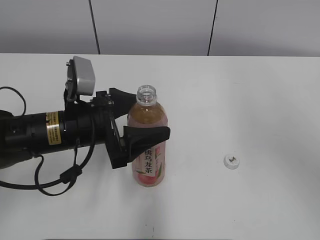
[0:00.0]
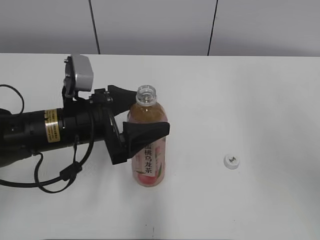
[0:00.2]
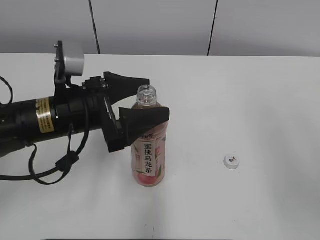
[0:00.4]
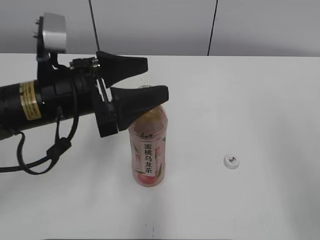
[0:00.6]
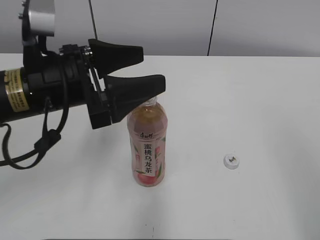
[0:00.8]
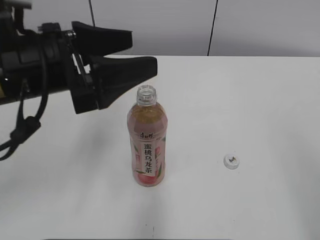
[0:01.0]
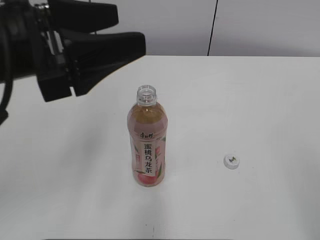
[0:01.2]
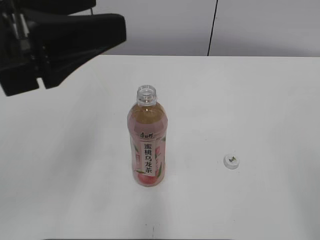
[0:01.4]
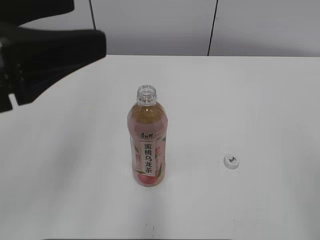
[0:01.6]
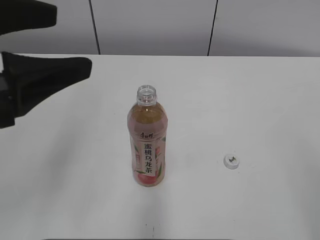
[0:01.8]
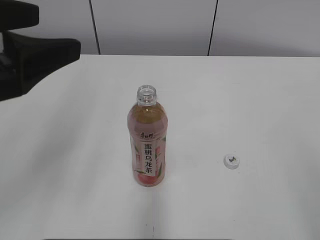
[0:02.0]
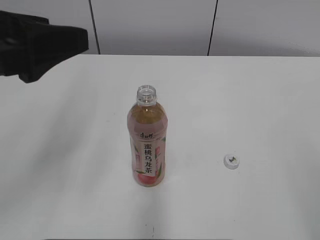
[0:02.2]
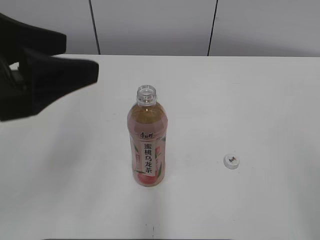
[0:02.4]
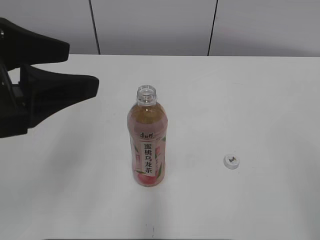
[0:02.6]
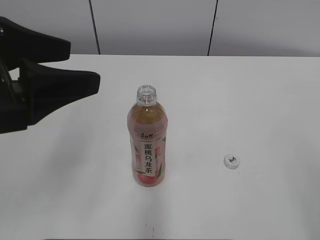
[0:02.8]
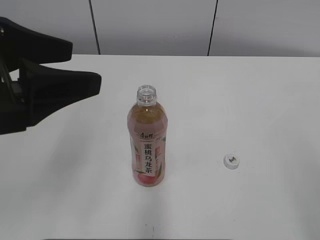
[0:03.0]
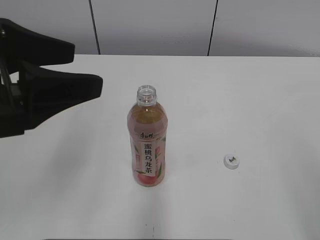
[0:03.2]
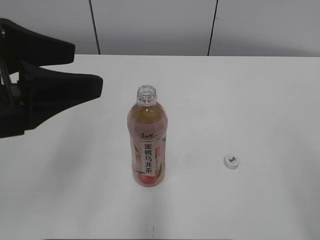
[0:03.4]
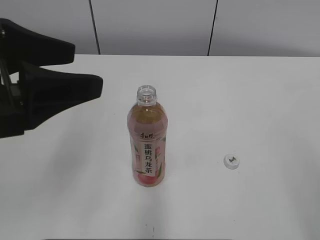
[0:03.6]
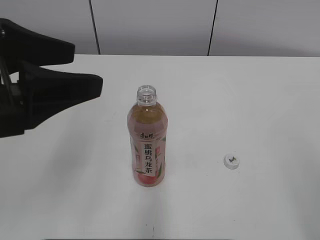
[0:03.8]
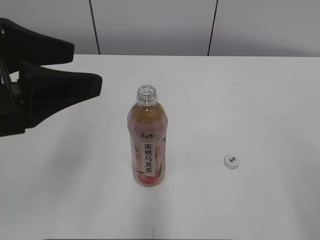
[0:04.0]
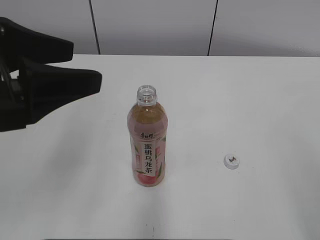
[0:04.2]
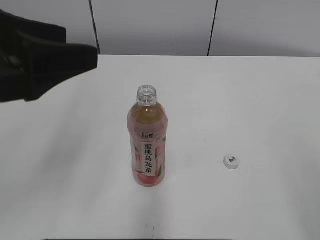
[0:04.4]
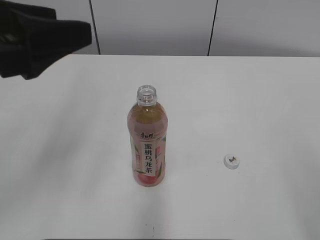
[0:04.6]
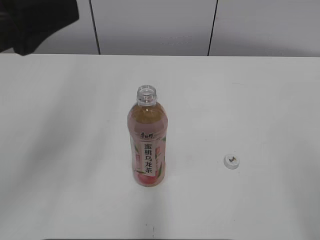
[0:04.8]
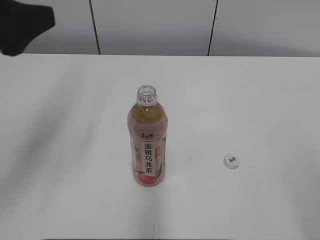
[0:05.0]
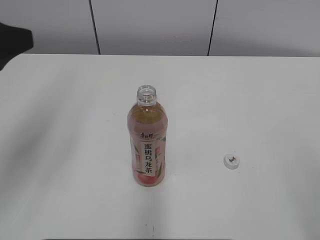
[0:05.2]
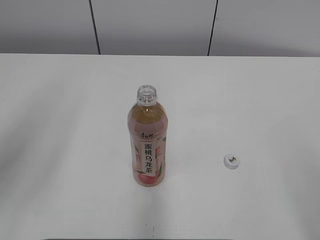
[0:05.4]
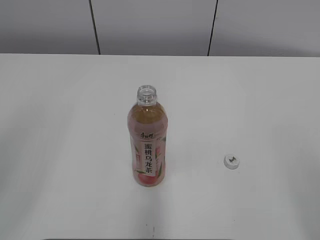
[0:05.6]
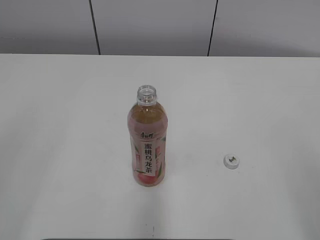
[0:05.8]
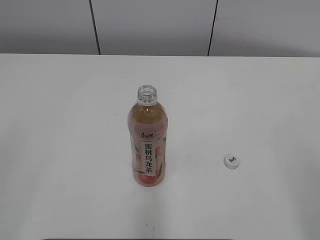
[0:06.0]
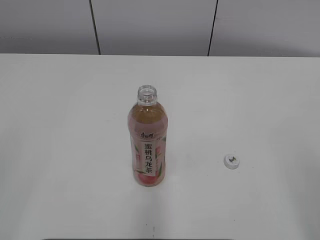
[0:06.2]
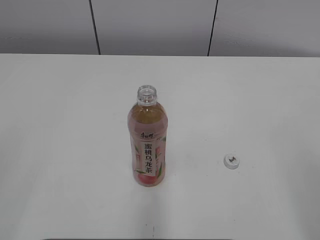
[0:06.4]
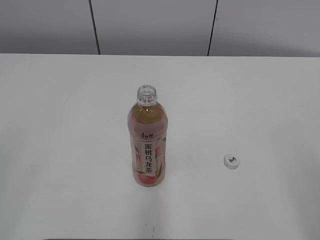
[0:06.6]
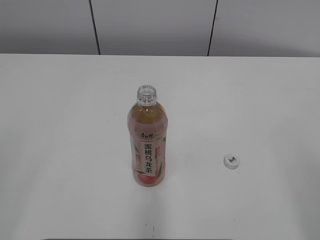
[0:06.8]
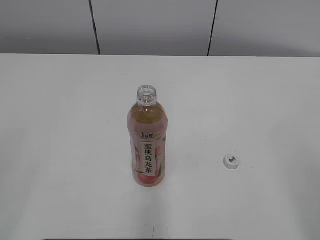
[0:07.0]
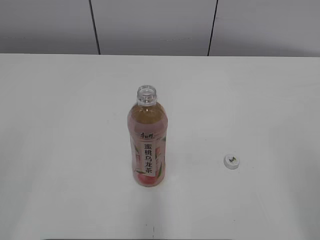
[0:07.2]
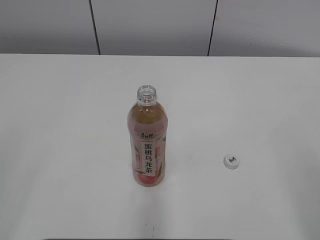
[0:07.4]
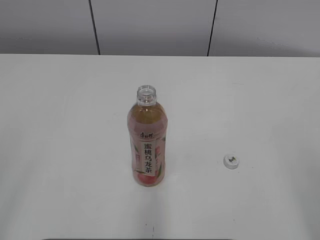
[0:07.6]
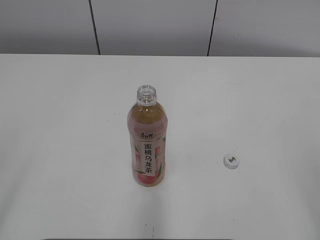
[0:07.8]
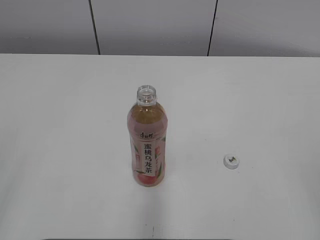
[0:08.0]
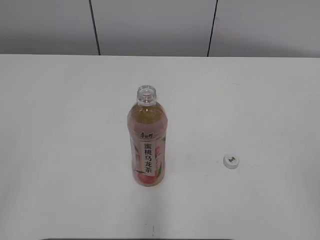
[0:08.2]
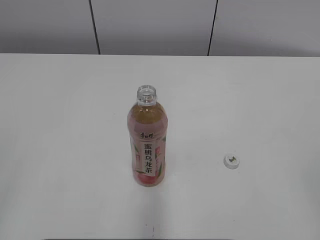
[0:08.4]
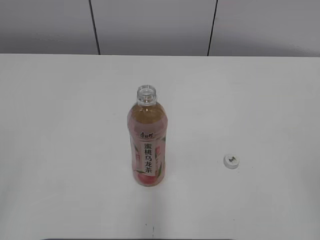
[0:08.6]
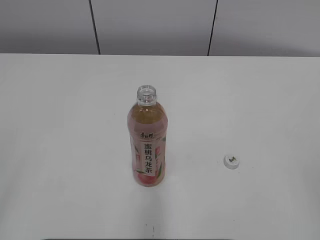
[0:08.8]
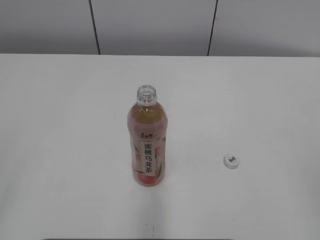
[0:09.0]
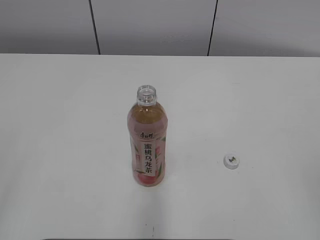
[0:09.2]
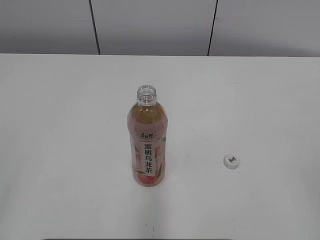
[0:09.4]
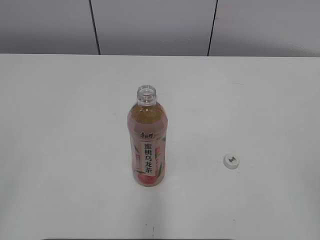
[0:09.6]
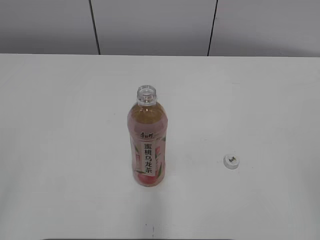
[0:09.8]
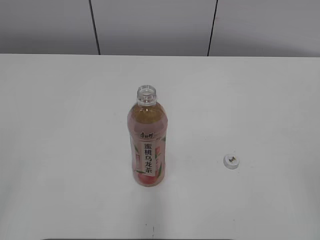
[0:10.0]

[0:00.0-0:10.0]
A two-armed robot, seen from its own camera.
0:00.0 to 0:01.4: The right gripper is displaced backward, downward and to the right by about 25 cm. Meanwhile the left gripper is displaced upward and backward by approximately 20 cm.
0:02.8 to 0:04.2: Both grippers stay put.
0:04.2 to 0:05.8: The left gripper moves backward and to the left, approximately 15 cm.
0:08.6 to 0:10.0: Both grippers stay put.

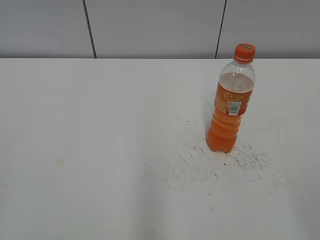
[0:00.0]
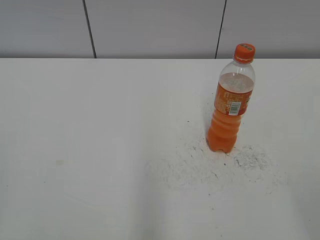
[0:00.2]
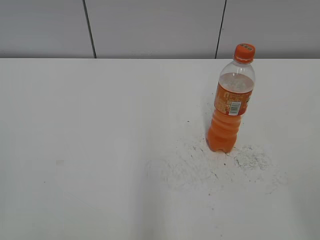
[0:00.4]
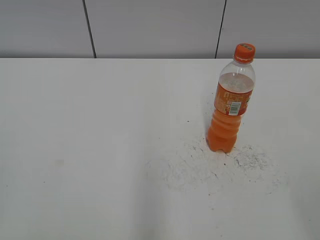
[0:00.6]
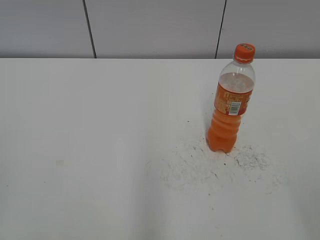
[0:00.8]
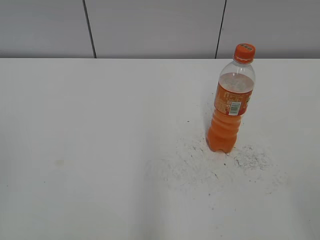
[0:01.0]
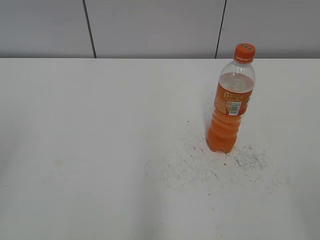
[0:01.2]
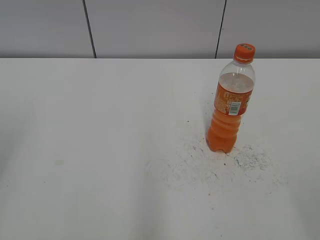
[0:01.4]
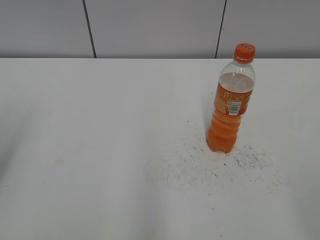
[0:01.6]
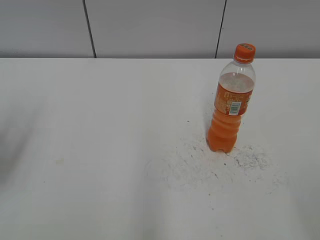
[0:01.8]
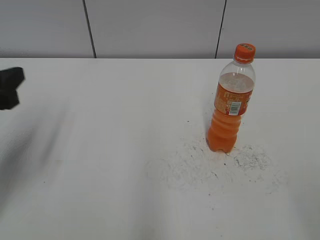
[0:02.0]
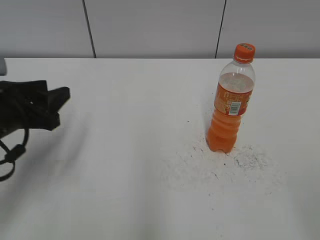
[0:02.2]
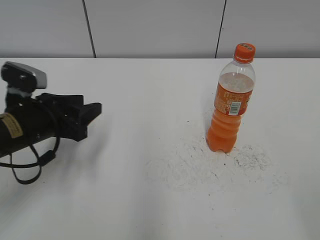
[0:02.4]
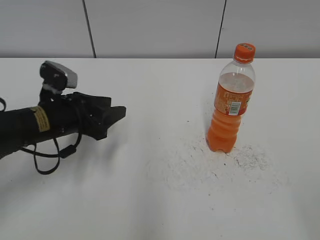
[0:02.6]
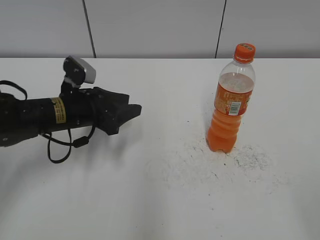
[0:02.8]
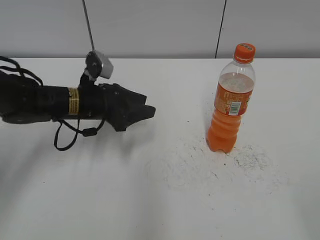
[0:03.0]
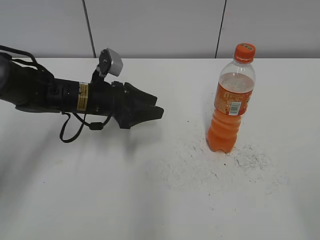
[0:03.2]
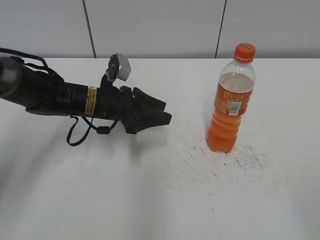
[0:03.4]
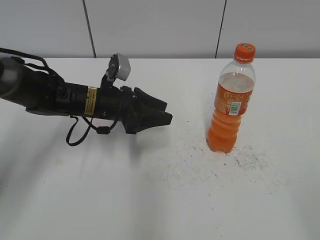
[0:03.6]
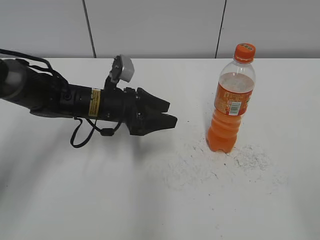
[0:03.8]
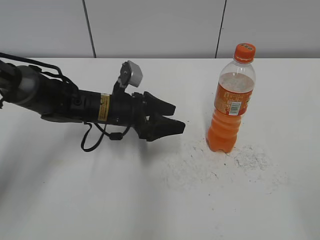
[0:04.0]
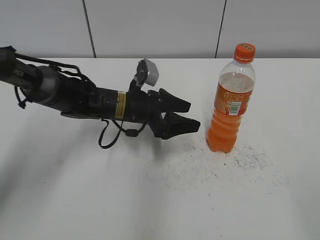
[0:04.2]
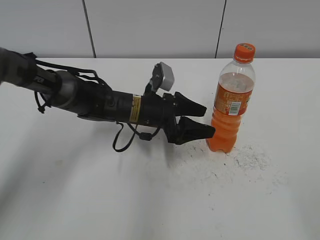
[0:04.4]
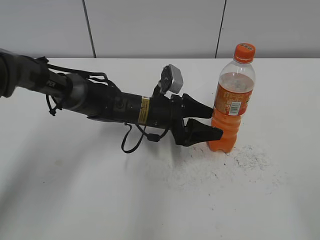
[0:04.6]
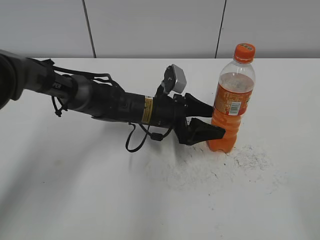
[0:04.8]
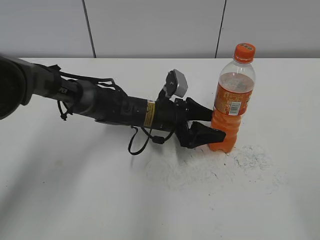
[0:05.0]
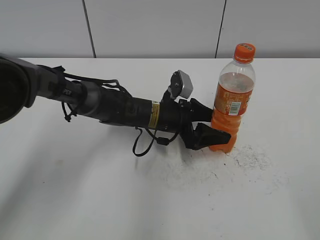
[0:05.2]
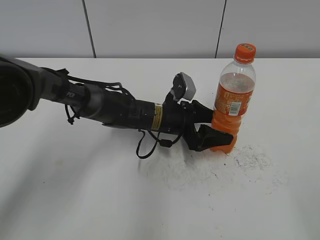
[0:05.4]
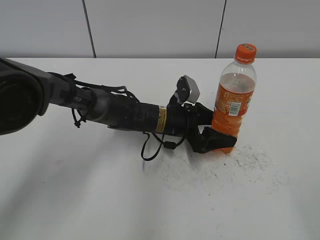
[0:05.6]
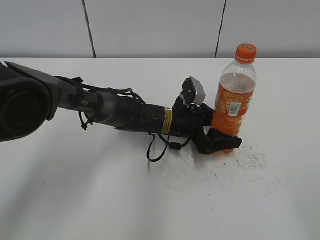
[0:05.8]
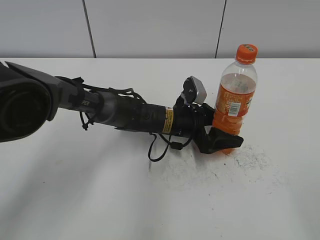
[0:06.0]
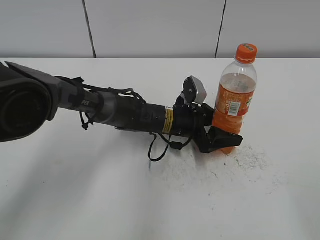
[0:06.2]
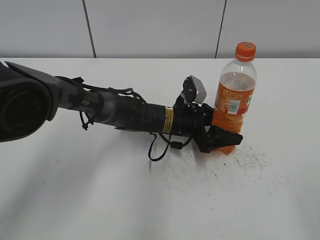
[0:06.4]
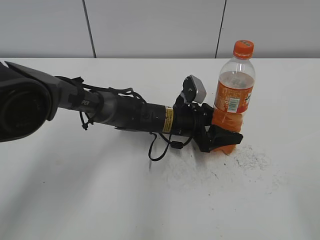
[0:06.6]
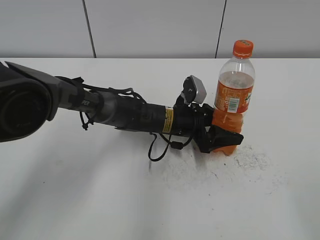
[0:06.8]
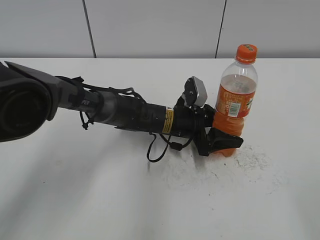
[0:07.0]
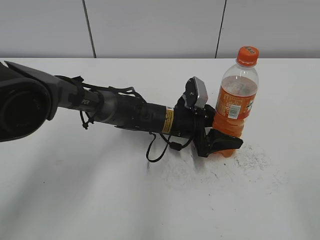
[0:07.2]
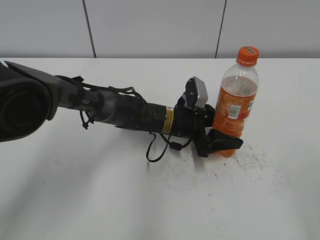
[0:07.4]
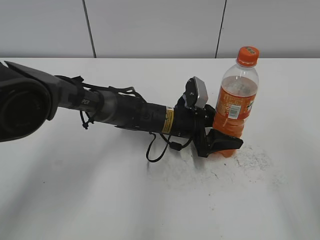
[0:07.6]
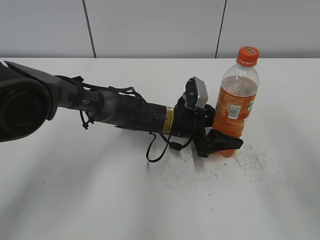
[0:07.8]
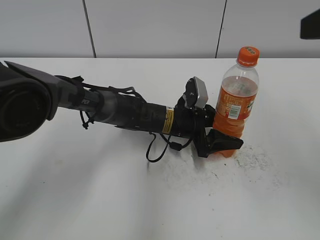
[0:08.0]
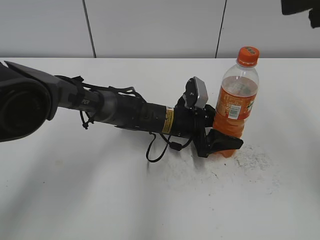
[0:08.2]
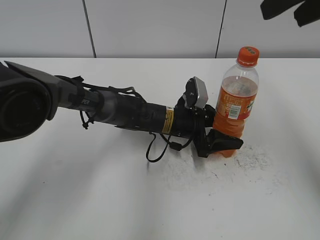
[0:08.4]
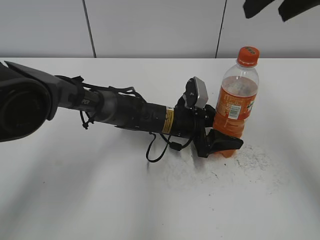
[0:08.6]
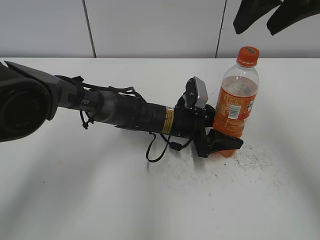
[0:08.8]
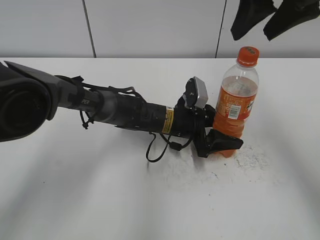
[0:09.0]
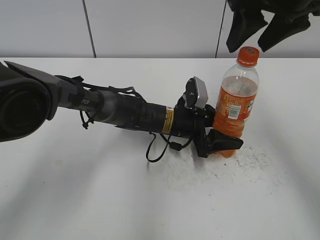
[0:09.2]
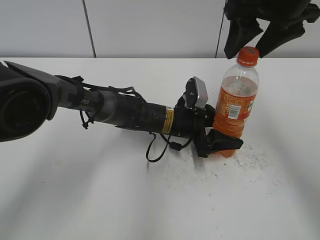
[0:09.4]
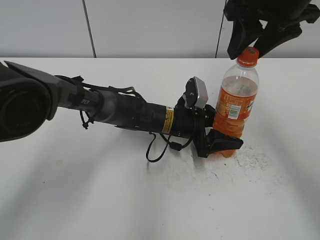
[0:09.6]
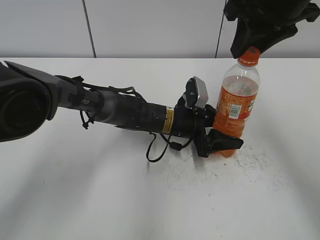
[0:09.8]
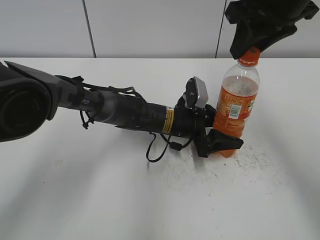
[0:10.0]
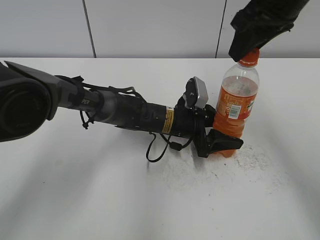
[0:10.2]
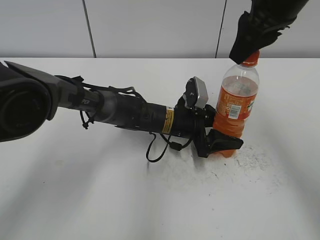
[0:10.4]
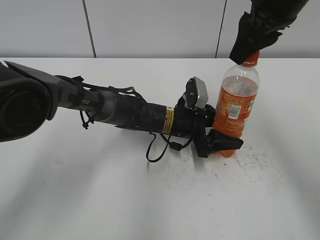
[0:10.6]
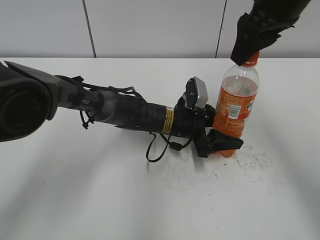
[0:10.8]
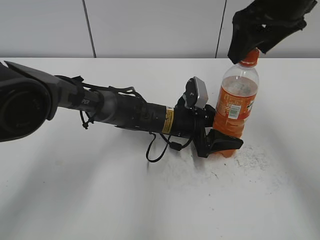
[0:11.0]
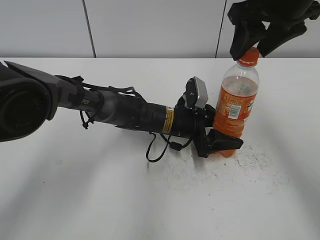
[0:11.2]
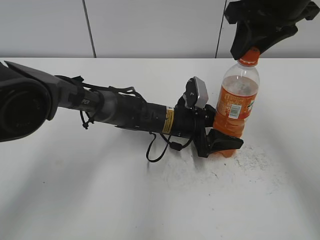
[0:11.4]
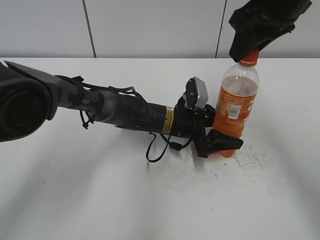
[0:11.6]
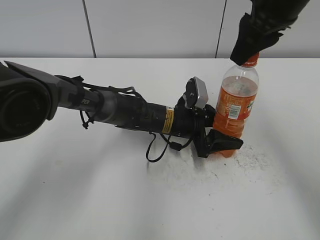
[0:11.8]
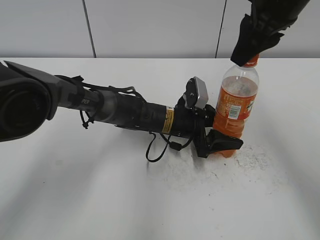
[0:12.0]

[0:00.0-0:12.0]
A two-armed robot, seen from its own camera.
Step, 0:00.0 to 0:06.6: Grab the Mirinda with the left hand.
0:01.6 to 0:03.0: The left gripper moves forward, to the right and downward, approximately 30 cm.
0:03.0 to 0:04.4: The left gripper moves to the right, about 10 cm, and opens.
0:04.4 to 0:06.0: The left gripper is displaced to the right by some 5 cm.
0:06.0 to 0:07.6: The right gripper heads forward, covering some 10 cm. Meanwhile the left gripper closes its fingers.
0:07.6 to 0:09.0: The right gripper travels forward by some 25 cm.
0:09.0 to 0:10.4: The right gripper closes up.
0:10.4 to 0:12.0: The right gripper opens, then closes again.
